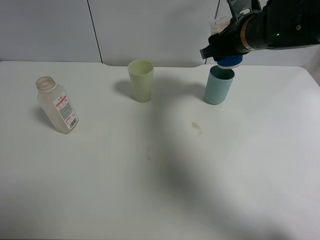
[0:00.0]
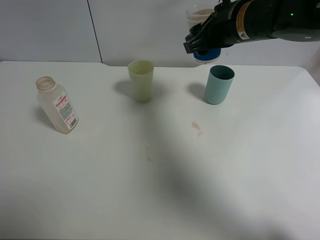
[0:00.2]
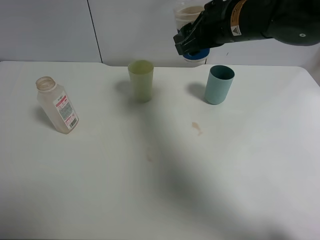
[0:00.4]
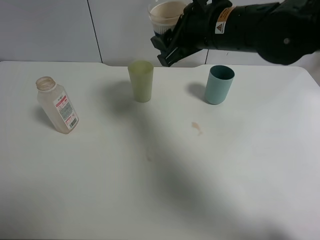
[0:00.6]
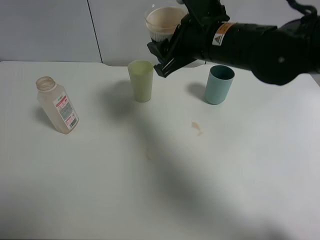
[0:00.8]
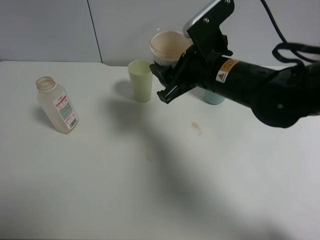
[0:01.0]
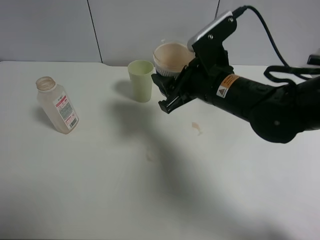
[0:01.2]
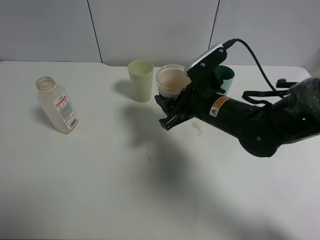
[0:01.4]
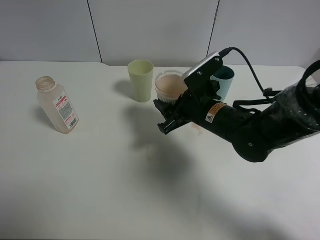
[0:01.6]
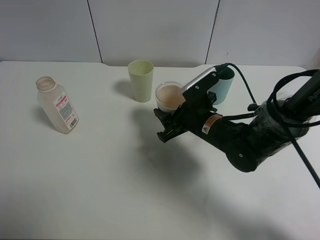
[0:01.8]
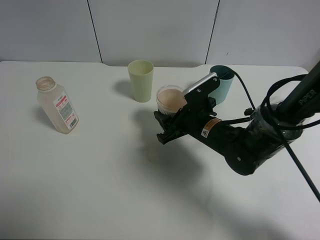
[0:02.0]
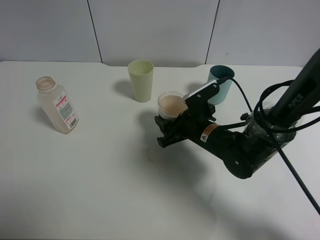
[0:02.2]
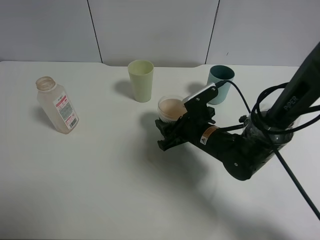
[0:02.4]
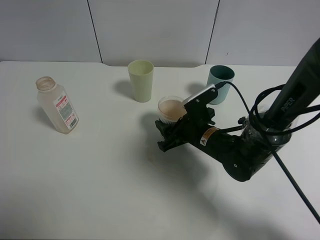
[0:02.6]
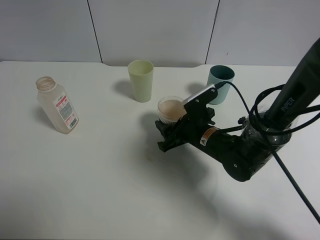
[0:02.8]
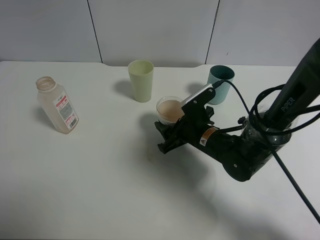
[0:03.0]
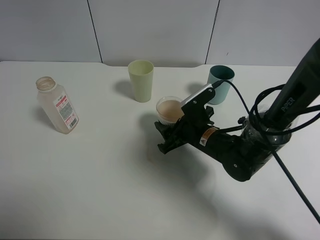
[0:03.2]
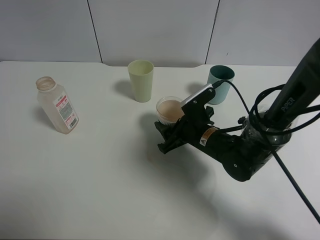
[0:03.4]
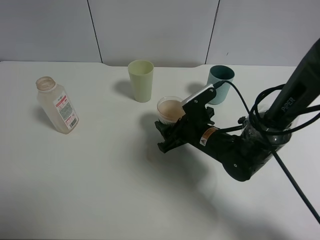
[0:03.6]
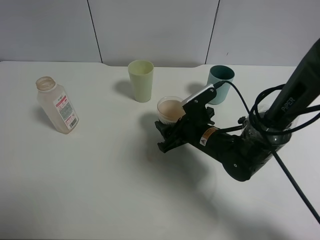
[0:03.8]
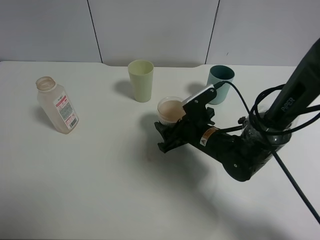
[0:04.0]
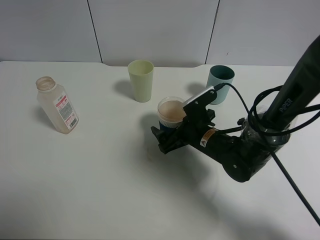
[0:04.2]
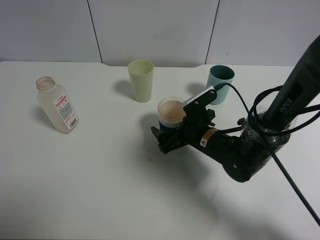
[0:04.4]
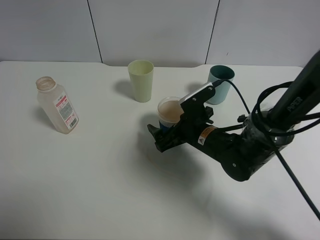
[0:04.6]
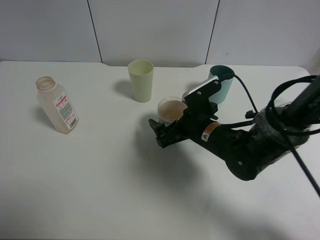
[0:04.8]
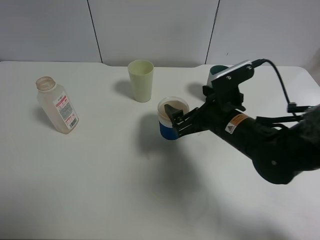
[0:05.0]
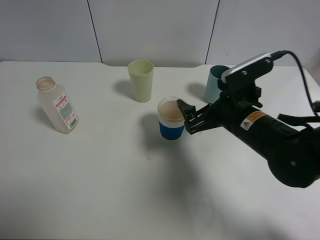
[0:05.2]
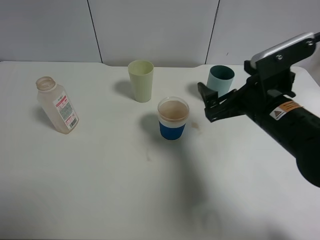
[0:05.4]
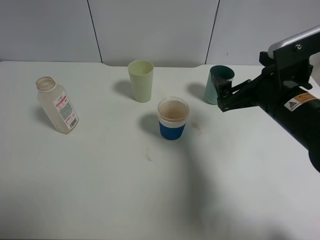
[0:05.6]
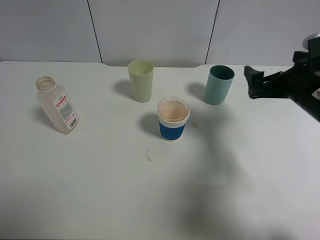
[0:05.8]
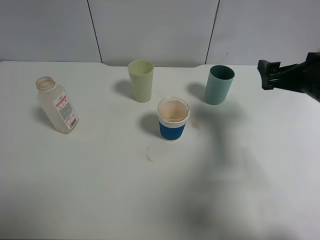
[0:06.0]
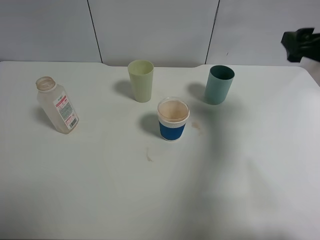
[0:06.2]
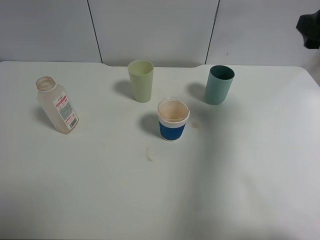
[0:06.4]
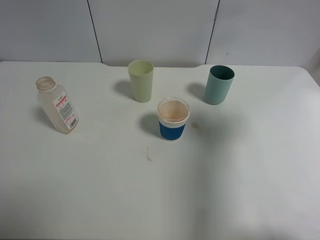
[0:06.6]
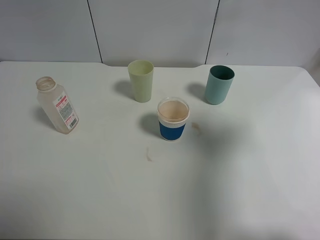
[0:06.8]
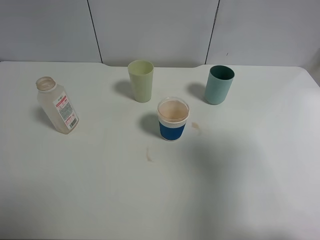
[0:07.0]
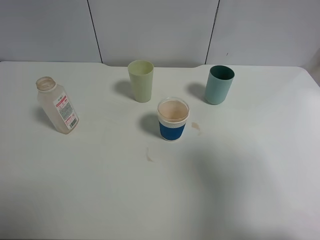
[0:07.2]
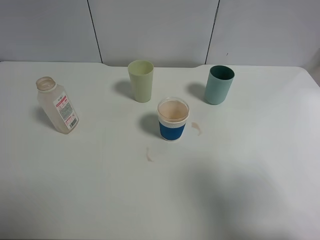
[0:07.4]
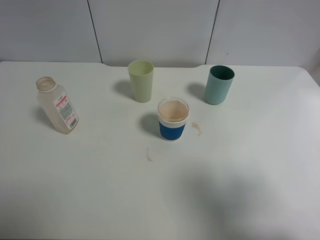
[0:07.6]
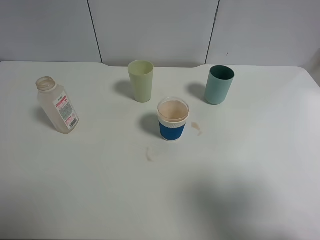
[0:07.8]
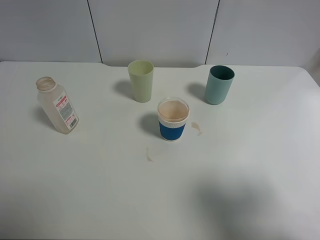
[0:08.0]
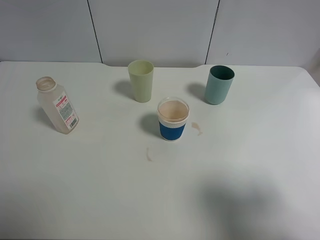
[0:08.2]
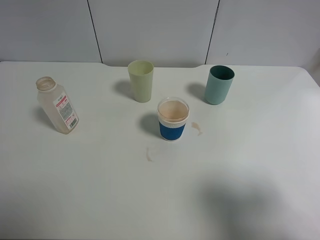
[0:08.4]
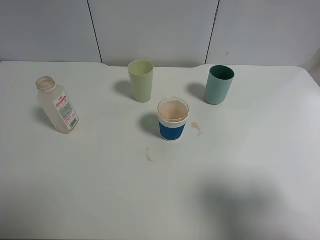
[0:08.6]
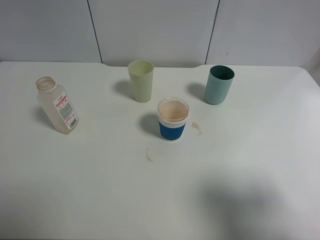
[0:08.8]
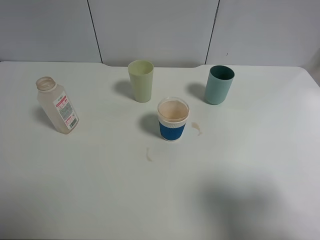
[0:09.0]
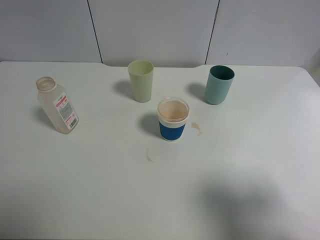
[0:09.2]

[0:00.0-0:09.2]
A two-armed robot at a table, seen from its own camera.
Task of the whole recording: use a clamp to hold the bottle of the drink, pour the beverage into a random cup, then clamp the cup containing the drink and pour the drink into another random cup.
Step, 0.0 to 4.4 s: Place the paper cup on the table with right gripper.
0.0 to 1.6 s: The right gripper is displaced downward, backward and to the left by roughly 15 cm.
1.6 to 3.0 s: The right gripper moves downward, roughly 5 cm.
3.0 to 4.6 s: The right gripper opens.
4.6 to 6.2 s: The right gripper heads to the right and upward, covering some 30 cm.
6.2 to 7.6 s: The right gripper travels backward by roughly 25 cm.
7.6 to 9.2 s: There are only small adjustments of the grippers.

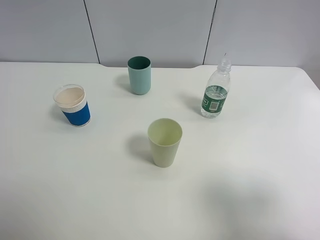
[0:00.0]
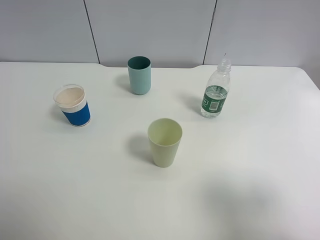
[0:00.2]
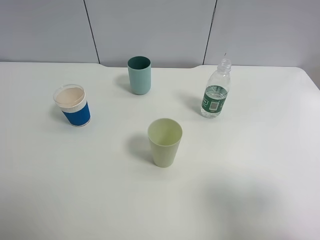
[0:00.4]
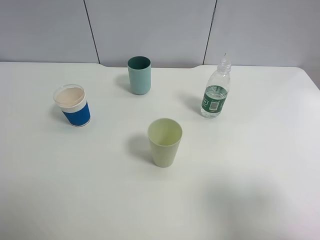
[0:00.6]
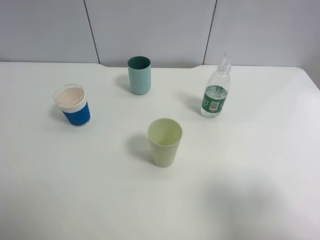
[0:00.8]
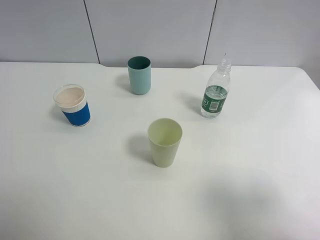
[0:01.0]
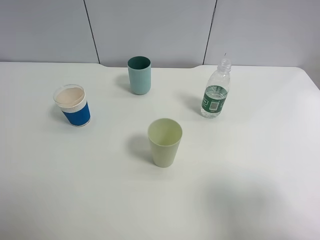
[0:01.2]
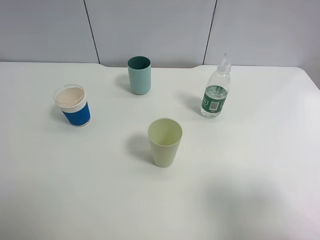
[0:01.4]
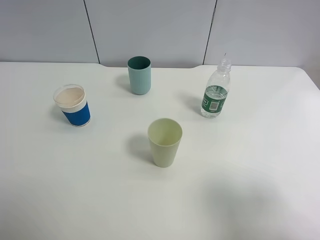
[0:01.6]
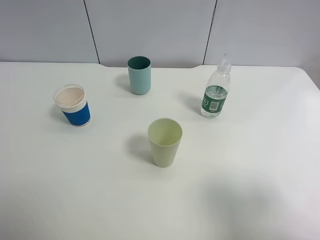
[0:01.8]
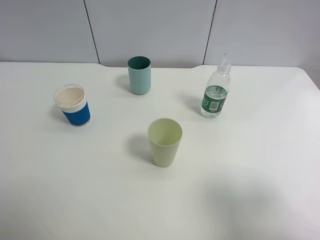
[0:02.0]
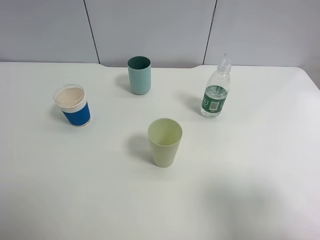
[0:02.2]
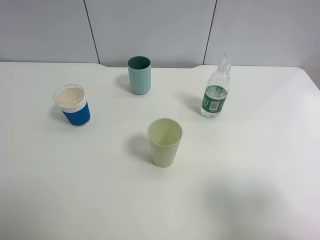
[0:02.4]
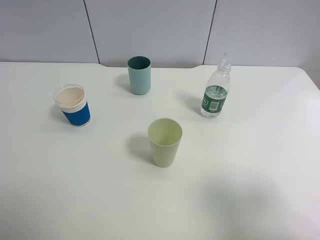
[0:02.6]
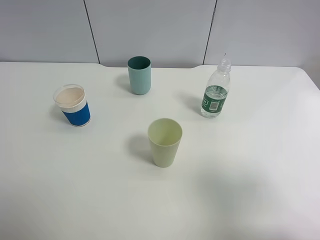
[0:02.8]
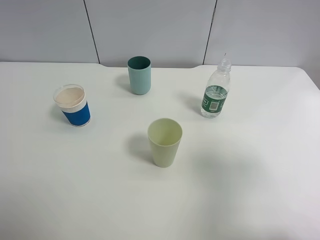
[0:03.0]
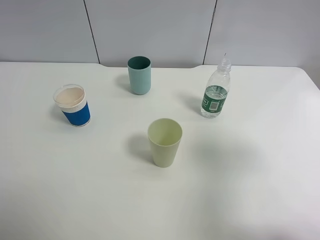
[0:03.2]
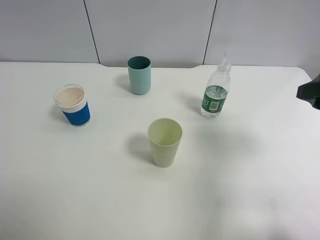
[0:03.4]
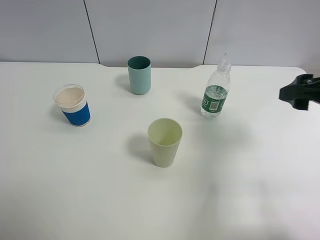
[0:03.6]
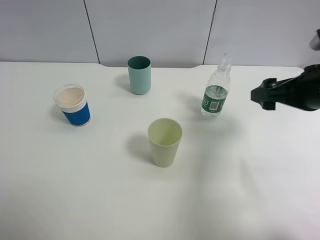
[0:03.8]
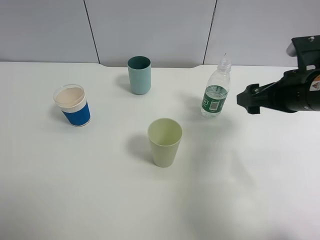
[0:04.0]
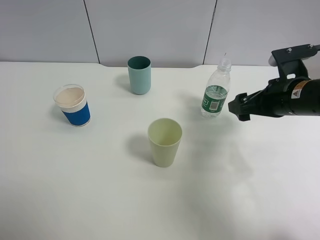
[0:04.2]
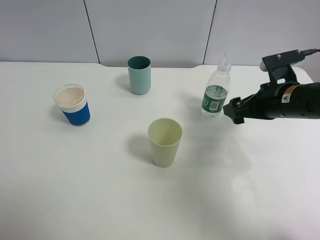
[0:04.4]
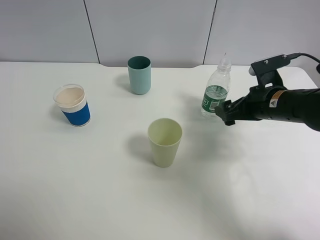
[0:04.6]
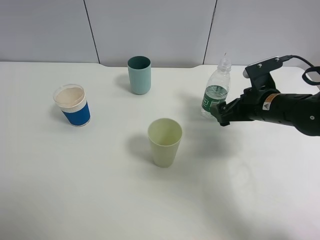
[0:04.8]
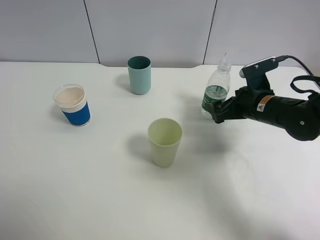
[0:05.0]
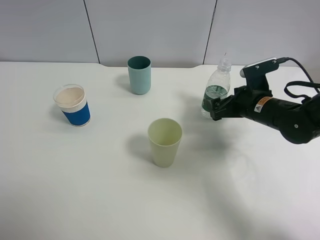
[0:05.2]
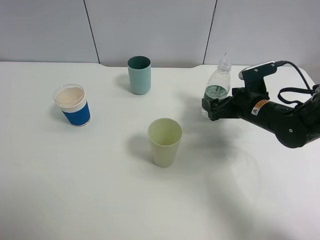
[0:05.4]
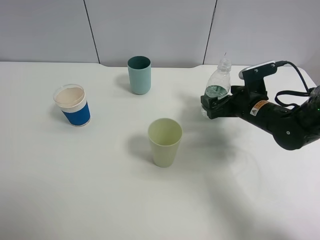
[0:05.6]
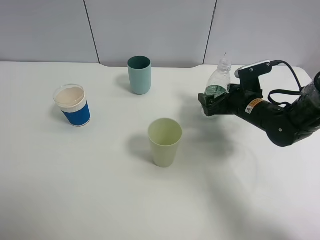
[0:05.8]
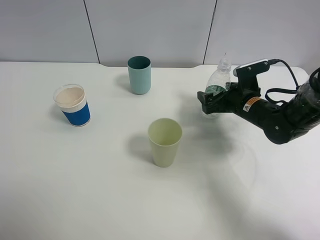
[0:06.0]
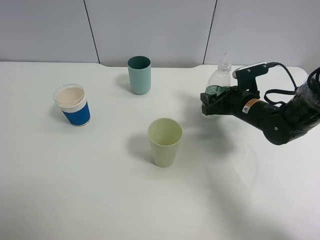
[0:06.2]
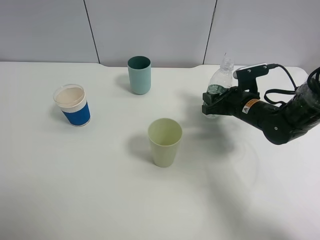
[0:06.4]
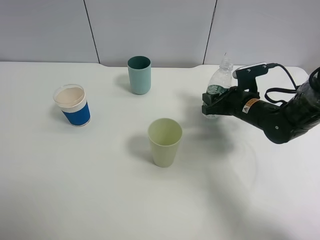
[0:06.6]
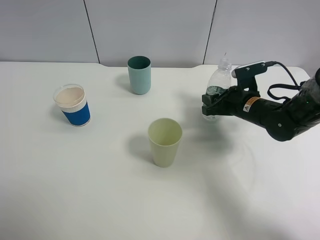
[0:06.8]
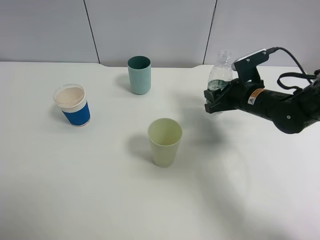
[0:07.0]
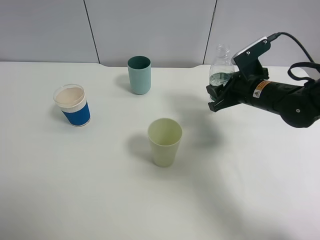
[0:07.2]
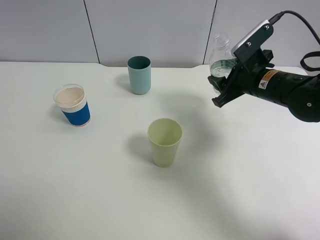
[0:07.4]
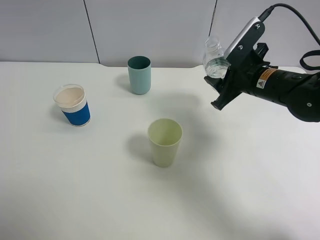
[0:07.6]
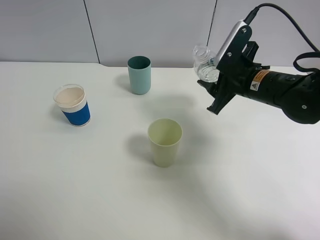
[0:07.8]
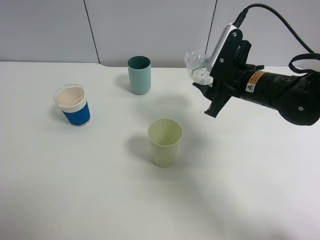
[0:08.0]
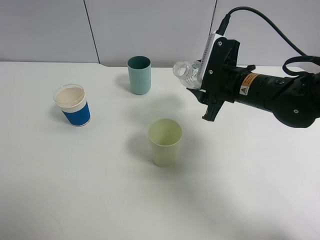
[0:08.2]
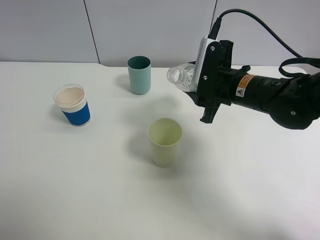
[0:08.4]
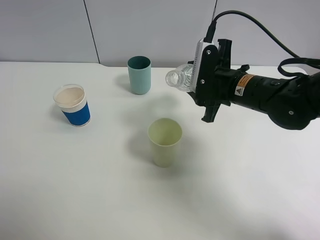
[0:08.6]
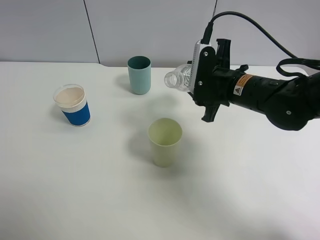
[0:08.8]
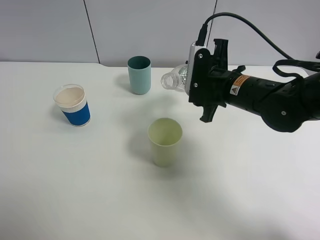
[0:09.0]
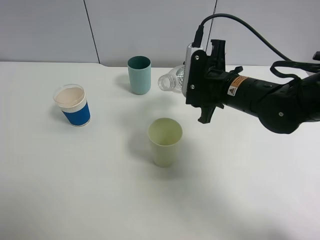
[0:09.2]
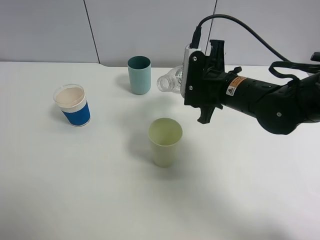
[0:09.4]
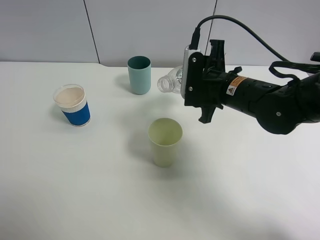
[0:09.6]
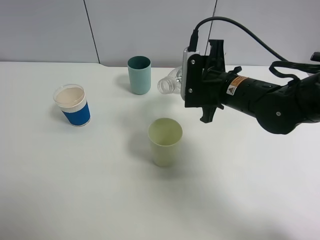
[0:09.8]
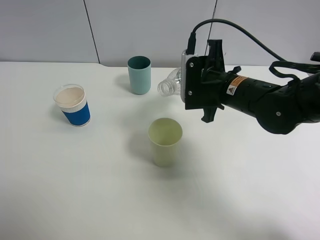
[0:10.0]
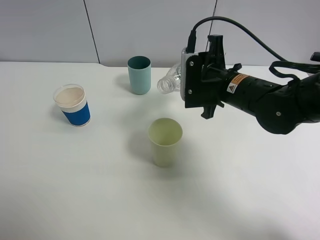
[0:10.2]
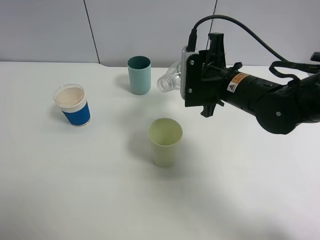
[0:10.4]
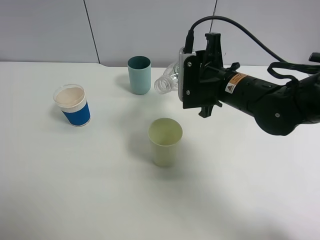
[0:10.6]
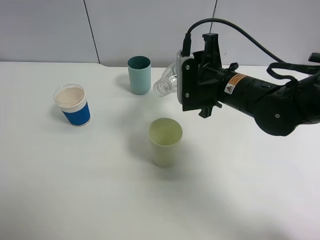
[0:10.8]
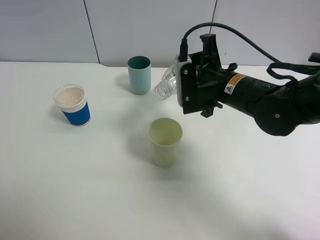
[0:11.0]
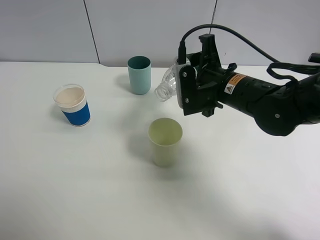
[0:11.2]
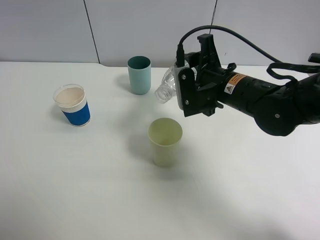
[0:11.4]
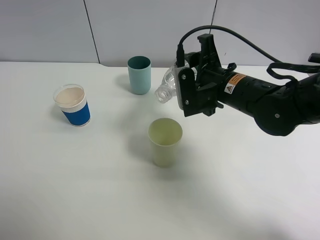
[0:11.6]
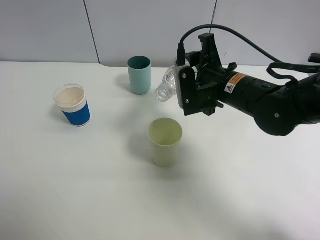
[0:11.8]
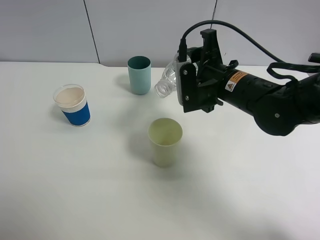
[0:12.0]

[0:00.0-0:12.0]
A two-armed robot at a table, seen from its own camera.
Task of the whole recording: use a clamp to hold the bottle of the drink, pour the beverage into a random cup, then clamp the cup containing the drink and pour the drink into another random cup.
Step, 0.0 to 6.8 s: Pick up the water bottle with right gripper.
0.0 to 1.6 s: Both grippers stay about where they are.
1.6 to 3.0 s: The right gripper shifts about 5 cm forward.
3.0 to 4.4 s: The right gripper moves forward and downward, roughly 25 cm.
4.4 to 6.0 s: The right gripper shifts approximately 10 cm downward and forward.
6.0 to 7.6 s: The right gripper heads upward, covering some 10 cm, and closes its fingers.
7.6 to 9.0 s: The right gripper travels to the left by about 5 cm.
9.0 to 10.4 s: The grippers make only small movements.
10.4 to 12.0 s: The grippers make only small movements.

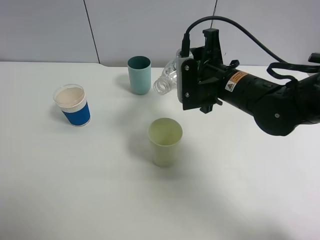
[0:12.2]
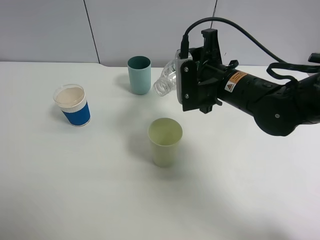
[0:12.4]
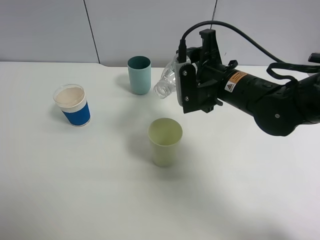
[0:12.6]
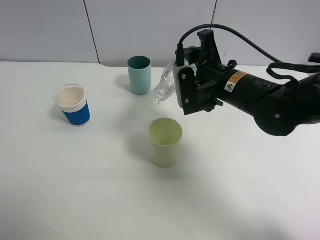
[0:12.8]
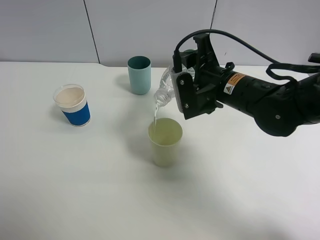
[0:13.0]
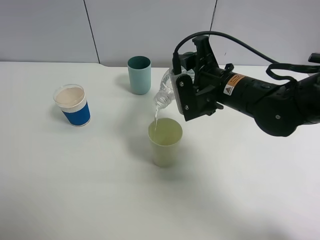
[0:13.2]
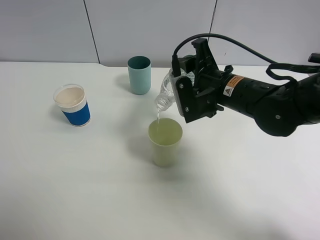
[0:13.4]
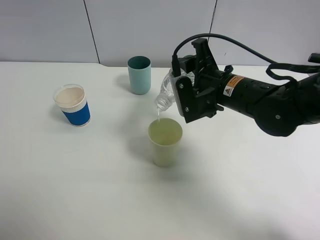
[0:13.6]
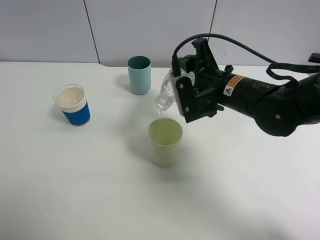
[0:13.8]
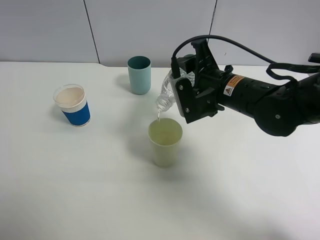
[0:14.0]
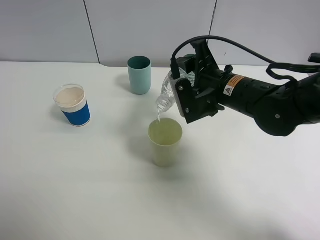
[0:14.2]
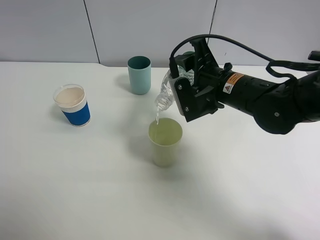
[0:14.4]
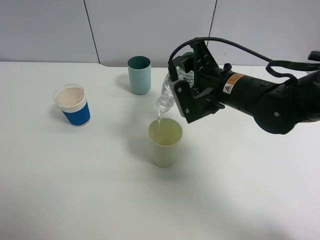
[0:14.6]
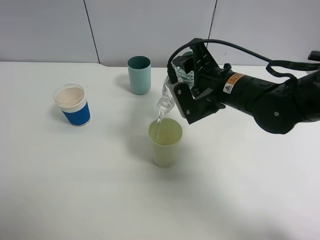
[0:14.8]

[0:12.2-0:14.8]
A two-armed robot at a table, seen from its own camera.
Task of the whole recording: use a clamp to hold the bottle of the drink, pour the beverage into a random cup, then clamp the cup containing the drink and pour the drink into another random cup.
12.2 to 14.8 s: The grippers stay close to where they were, moving slightly.
